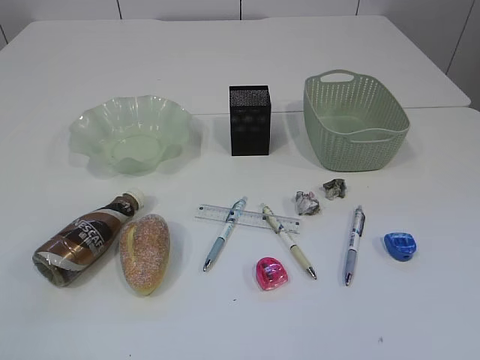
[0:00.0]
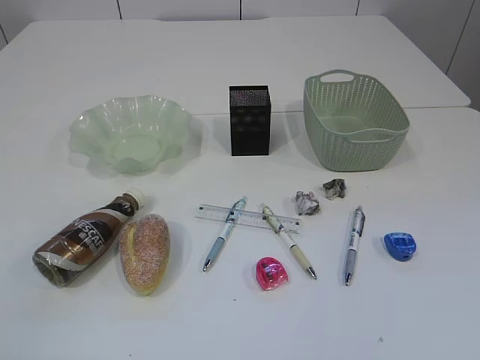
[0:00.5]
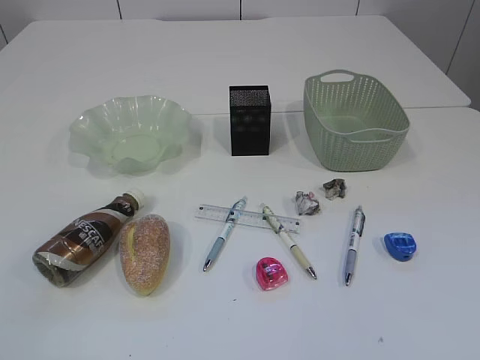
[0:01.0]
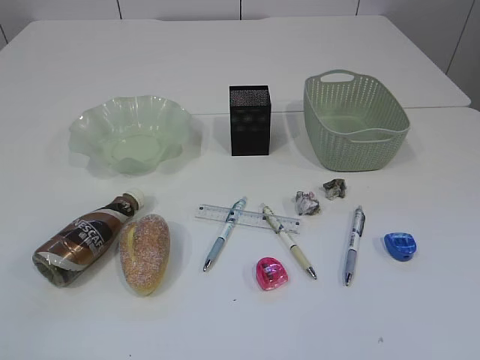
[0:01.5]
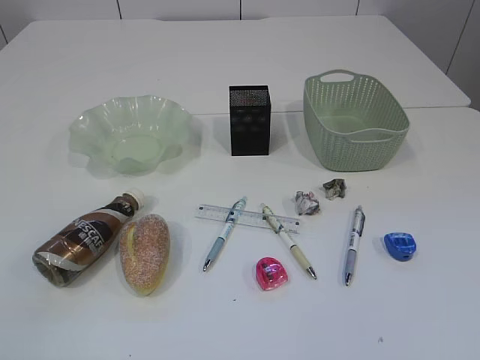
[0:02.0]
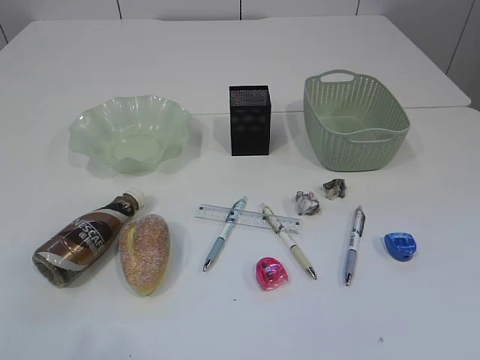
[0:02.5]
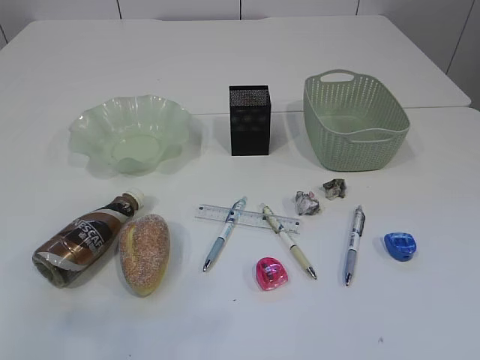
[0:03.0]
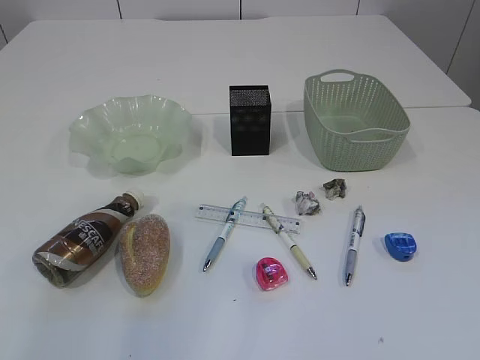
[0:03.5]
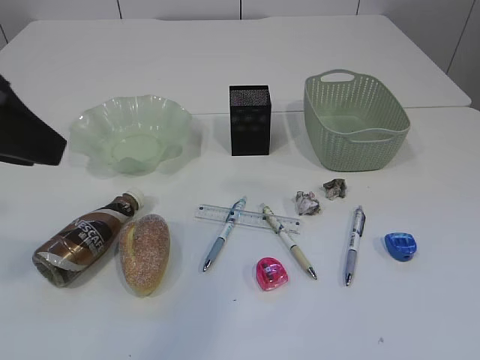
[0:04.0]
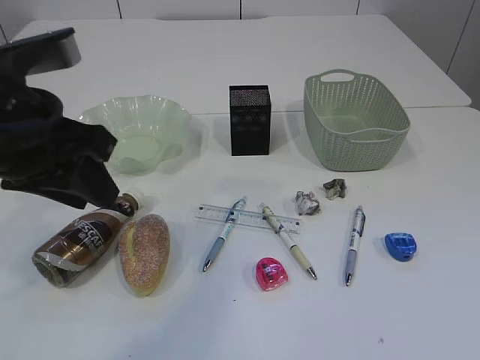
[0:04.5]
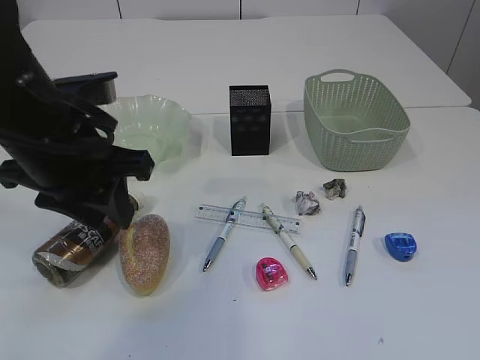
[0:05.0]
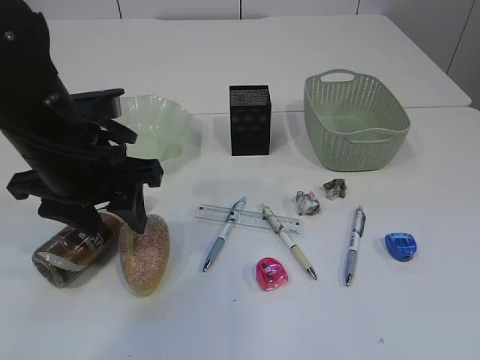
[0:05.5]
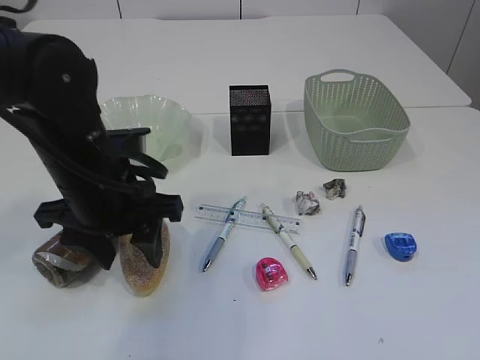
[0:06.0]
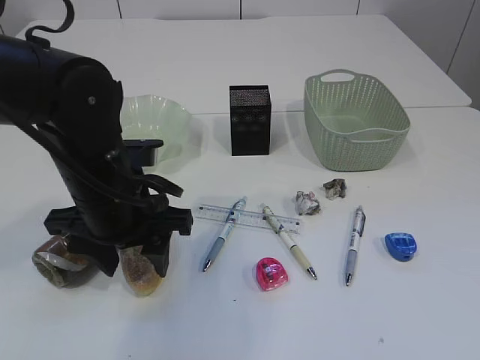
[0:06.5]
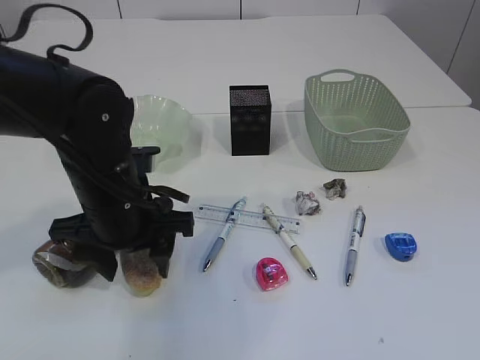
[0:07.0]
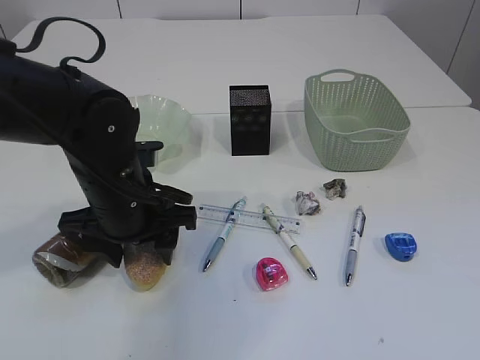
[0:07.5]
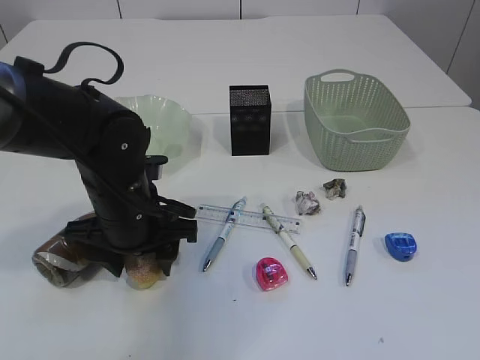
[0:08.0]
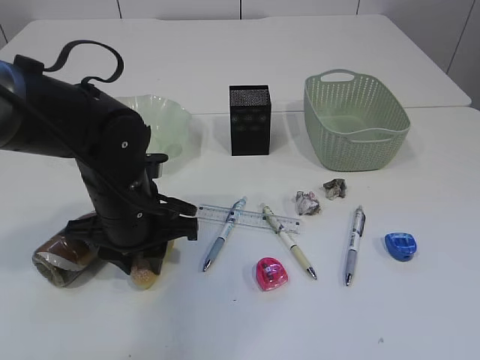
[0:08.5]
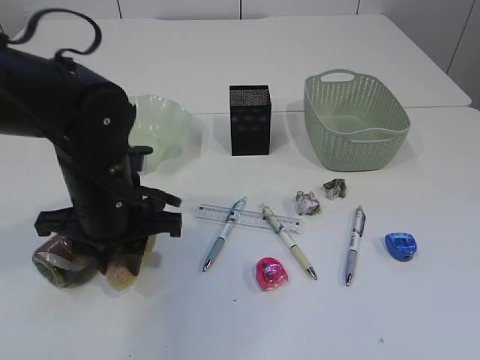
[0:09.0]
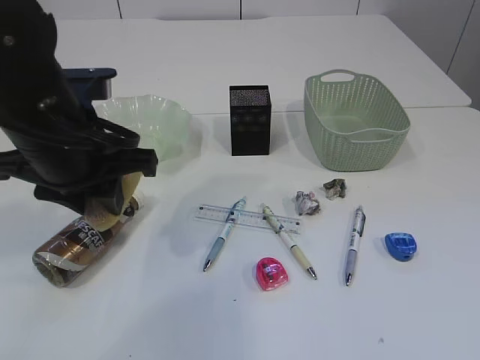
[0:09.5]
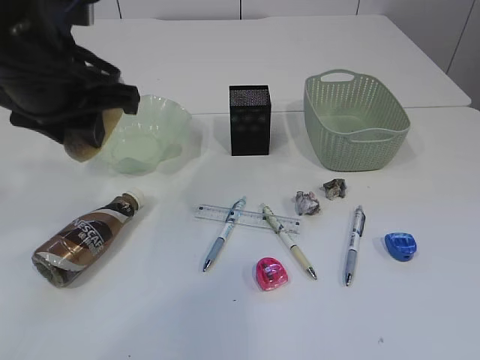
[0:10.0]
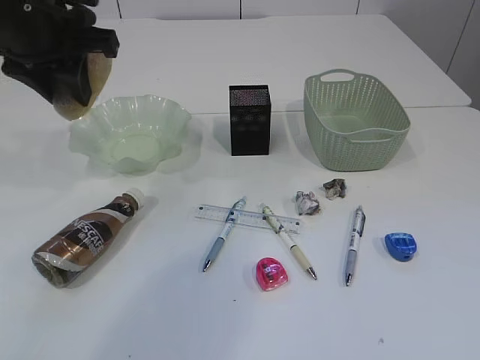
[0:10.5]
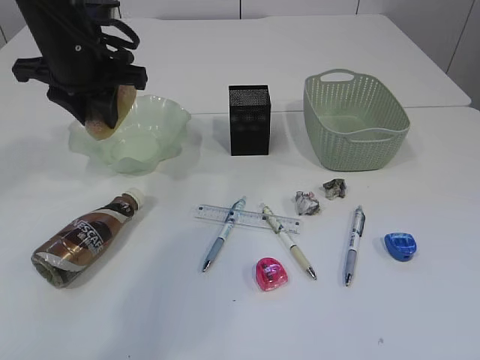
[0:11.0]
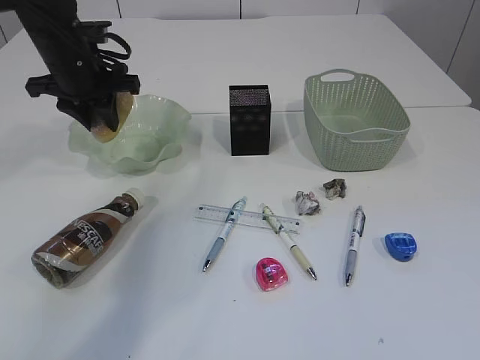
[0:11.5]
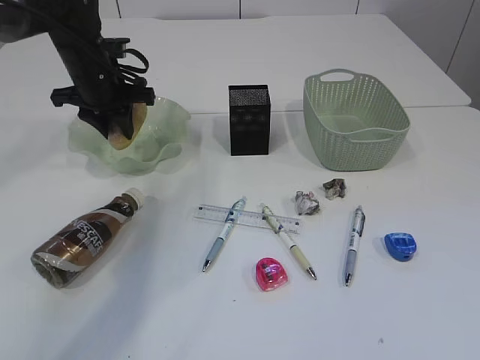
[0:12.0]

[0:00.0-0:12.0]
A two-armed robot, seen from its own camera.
0:02.0 to 0:04.0: The left gripper goes approximately 25 cm forward and to the right.
0:04.0 to 0:06.0: The left gripper shifts some 20 cm downward, forward and to the right, and opens its fingers.
0:06.0 to 0:08.0: The left gripper is displaced downward by about 5 cm.
0:08.0 to 0:10.0: The left gripper heads upward, covering approximately 15 cm, and closes its fingers.
0:10.0 to 0:12.0: The left gripper travels forward and downward by approximately 25 cm.

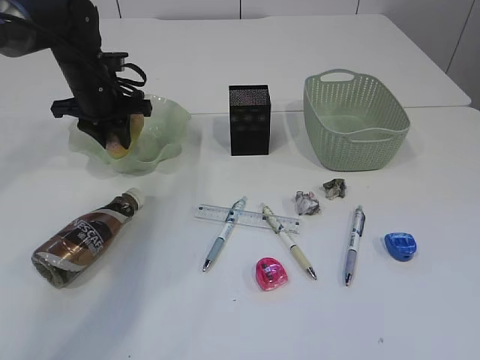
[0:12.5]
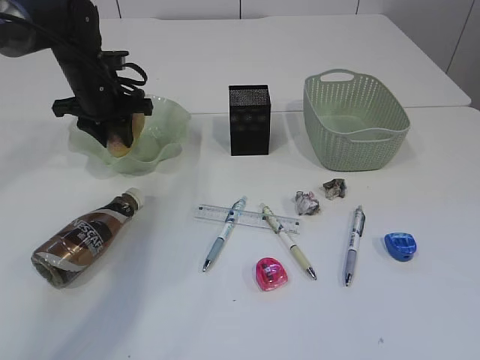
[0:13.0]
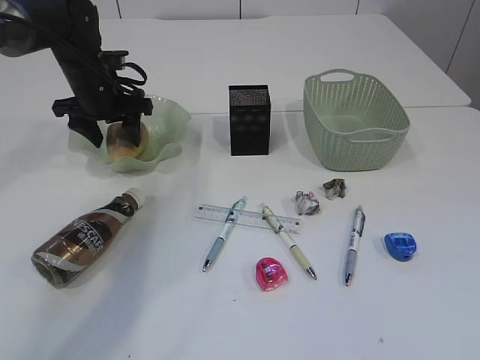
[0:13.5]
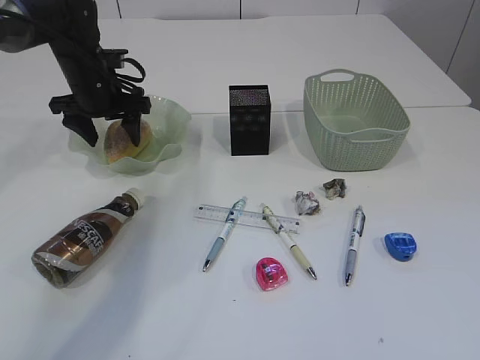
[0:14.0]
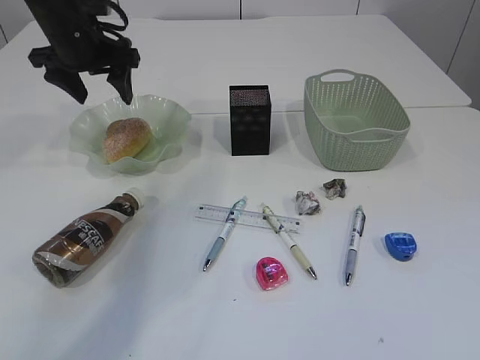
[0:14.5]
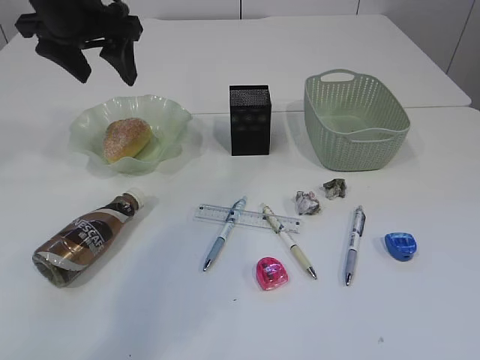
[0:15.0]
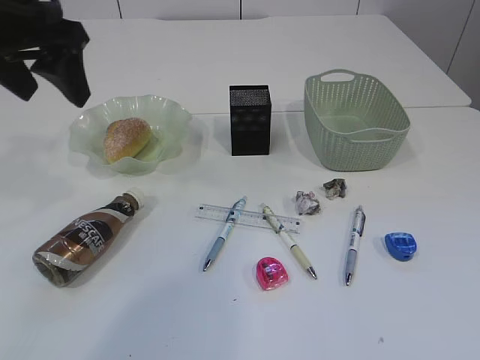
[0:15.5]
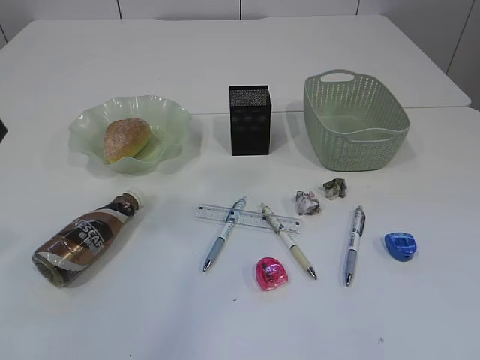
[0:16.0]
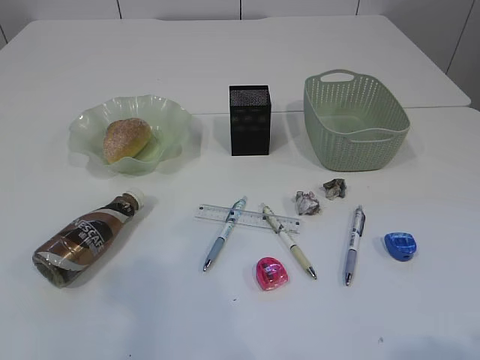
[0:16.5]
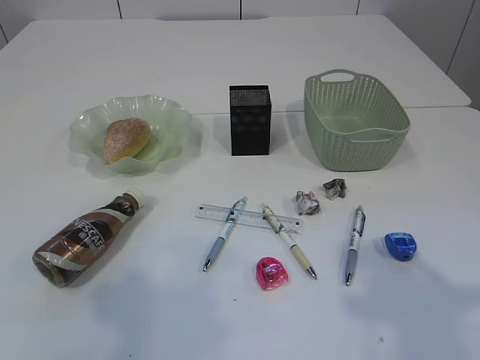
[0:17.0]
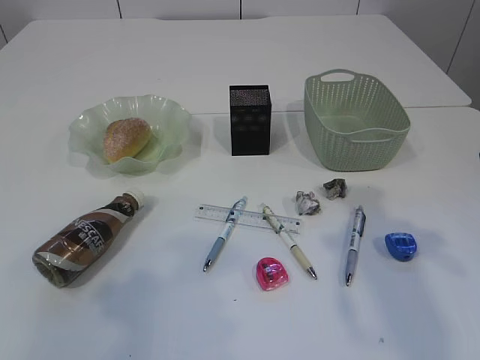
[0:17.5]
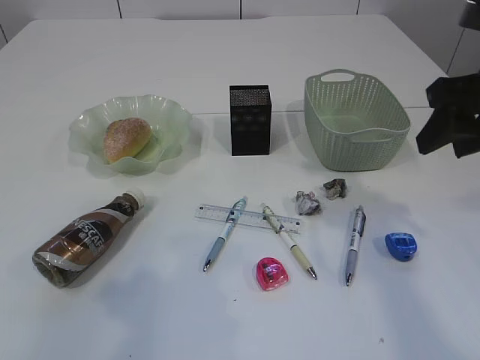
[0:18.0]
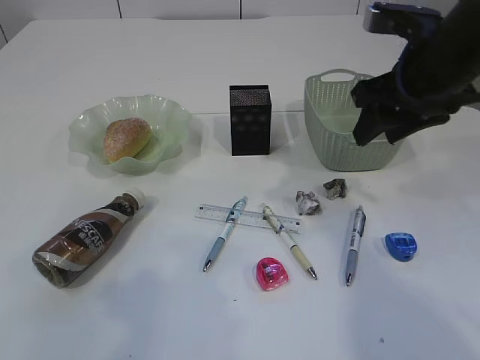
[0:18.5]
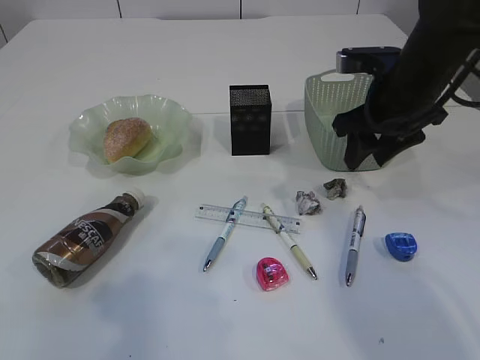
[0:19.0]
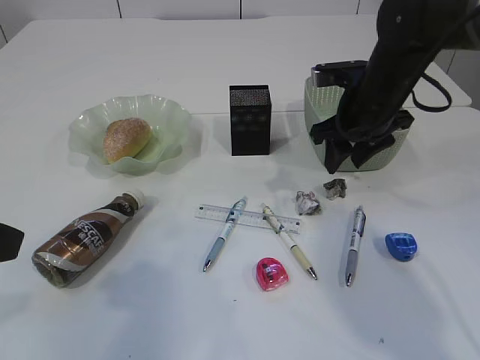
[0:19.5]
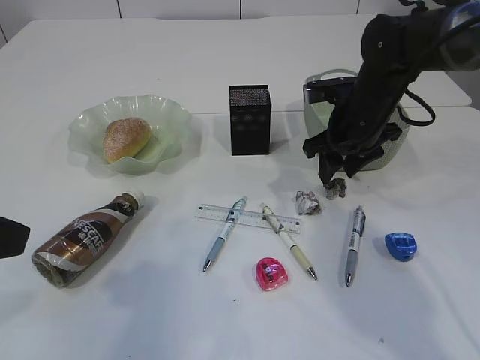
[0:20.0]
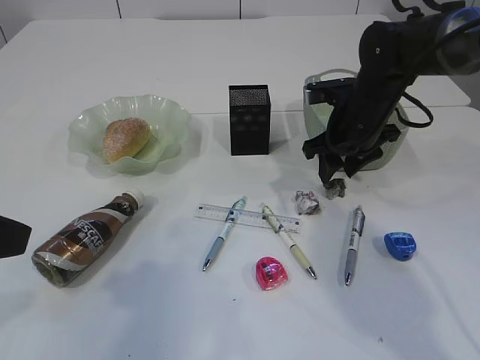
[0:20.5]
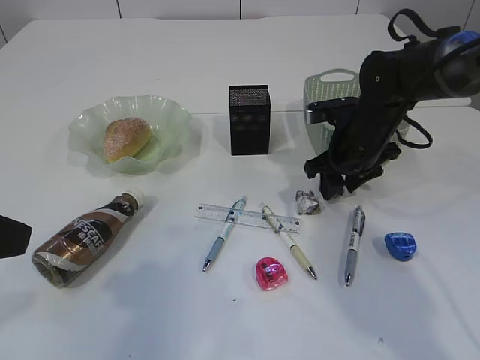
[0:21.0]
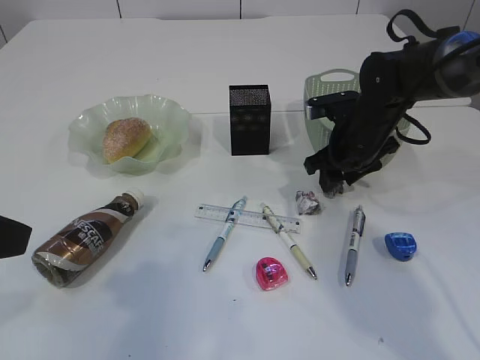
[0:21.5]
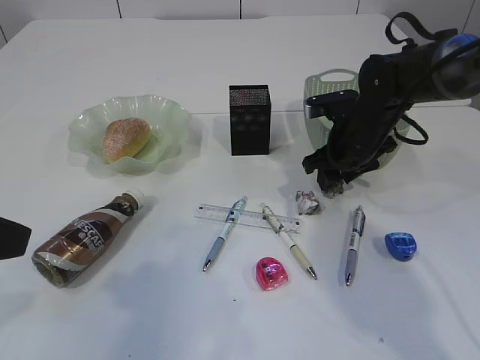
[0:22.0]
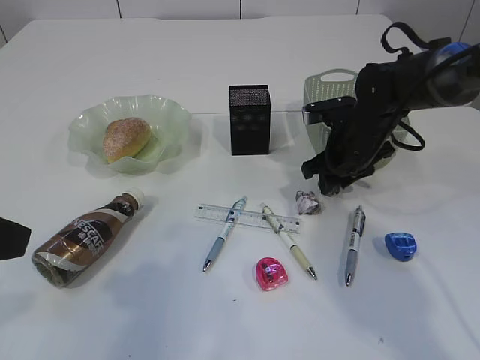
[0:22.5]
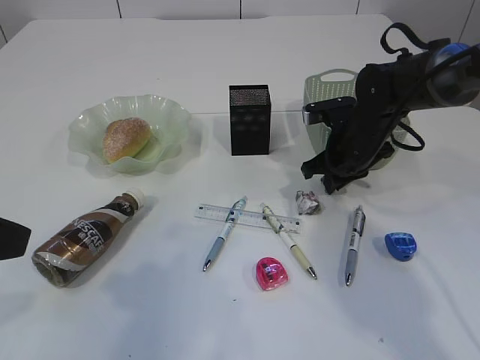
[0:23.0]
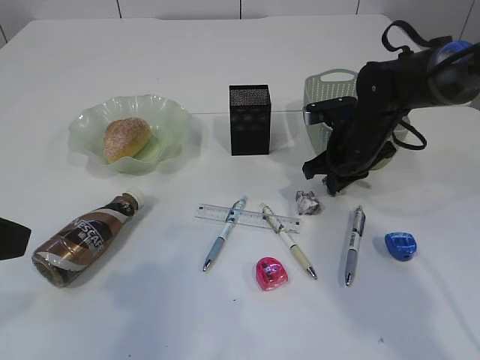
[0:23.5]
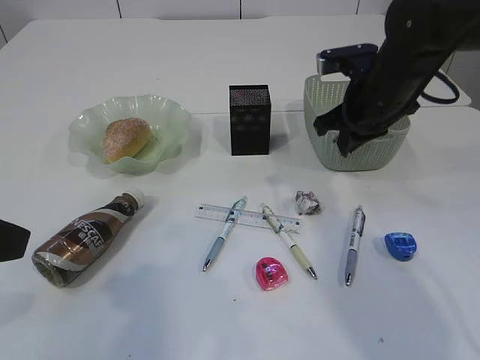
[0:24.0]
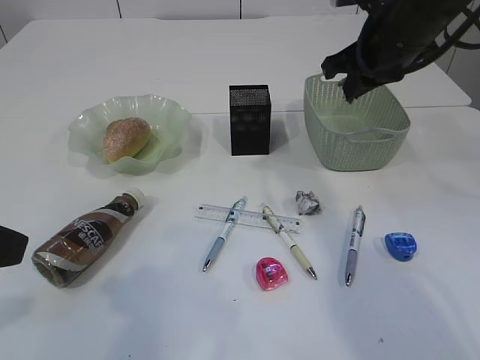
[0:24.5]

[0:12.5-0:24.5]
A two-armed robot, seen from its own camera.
Step, 0:12.5 to 0:14.5: place the bread in the plate.
Step, 0:15.0 to 0:24.0: Pick up the waste paper.
0:12.5 to 0:14.5: The left gripper moves upward, approximately 10 cm, and opens.
0:14.5 to 0:16.5: The left gripper is displaced backward by roughly 35 cm.
0:16.5 to 0:18.5: The right gripper travels forward by approximately 35 cm.
0:18.5 to 0:20.5: The left gripper changes place by some 5 cm. The right gripper goes approximately 15 cm downward and forward.
0:20.5 to 0:22.5: The grippers stay close to where they were, moving slightly.
0:22.5 to 0:24.5: The right gripper is displaced upward by approximately 15 cm, and closes up.

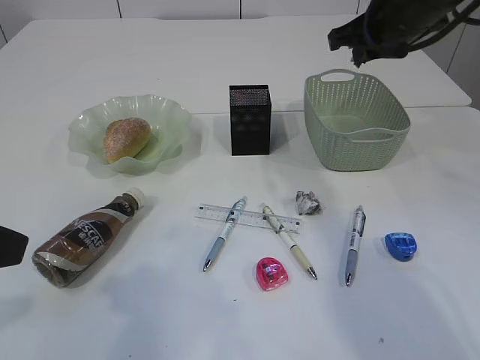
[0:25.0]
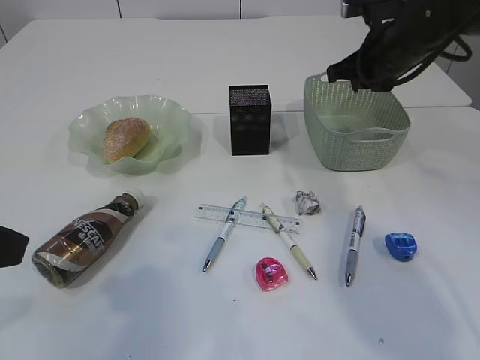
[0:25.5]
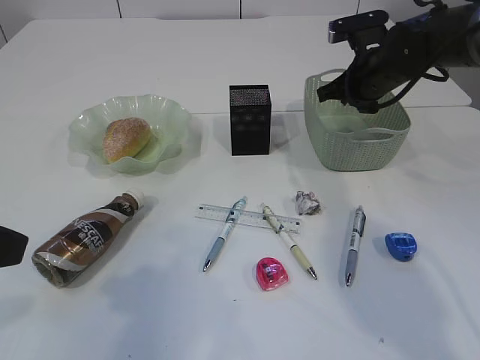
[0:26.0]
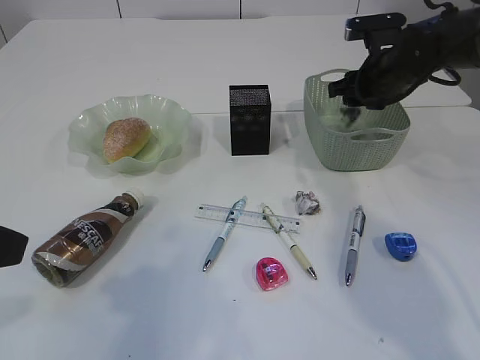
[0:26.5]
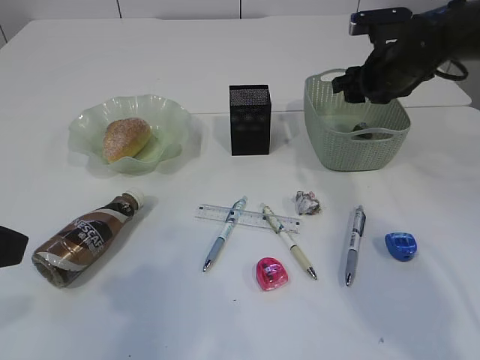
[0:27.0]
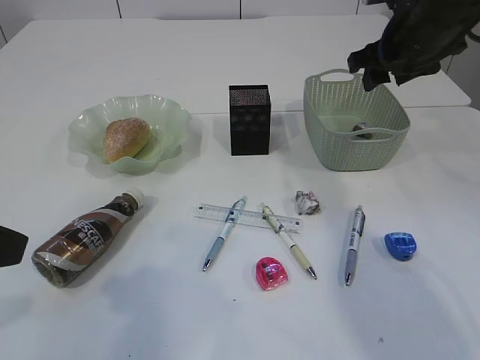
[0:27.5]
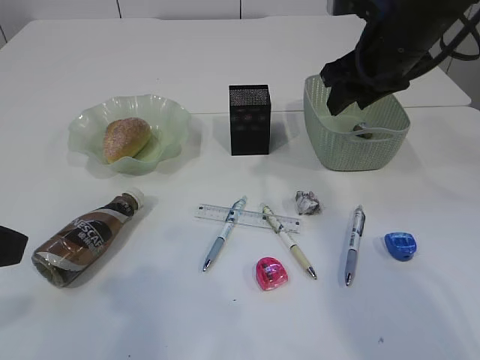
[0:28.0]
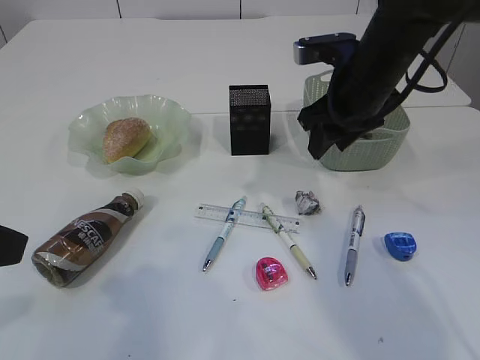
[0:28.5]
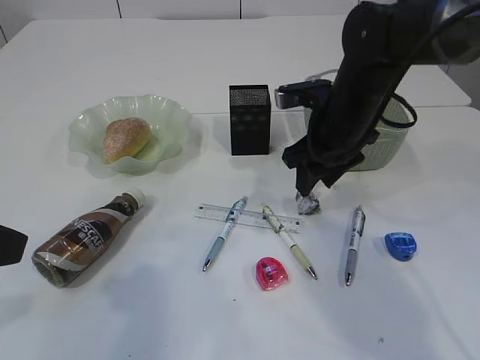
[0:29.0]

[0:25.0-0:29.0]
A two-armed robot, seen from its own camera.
Step, 0:25.0 to 0:27.0: Place the waste paper in the basket.
0:25.0 to 0:27.0: The right gripper goes roughly 10 cm downward and forward, and opens its fingers.
0:27.0 to 0:29.0: The right gripper heads to the left and backward, covering some 10 cm.
